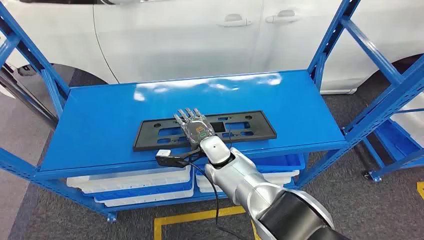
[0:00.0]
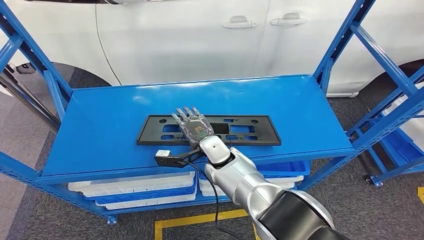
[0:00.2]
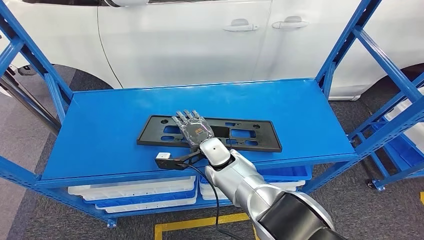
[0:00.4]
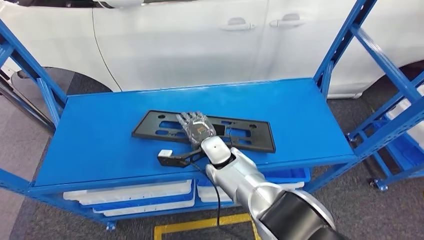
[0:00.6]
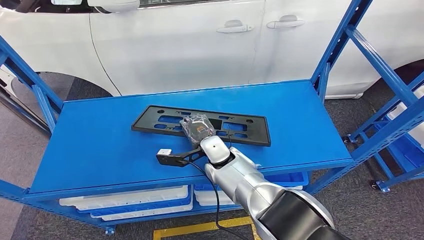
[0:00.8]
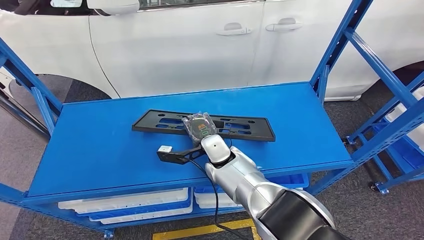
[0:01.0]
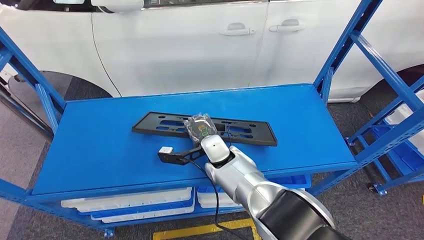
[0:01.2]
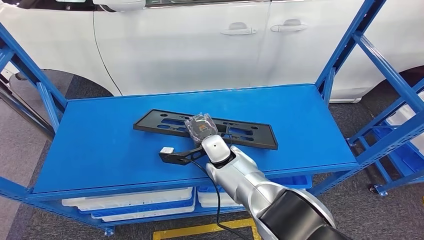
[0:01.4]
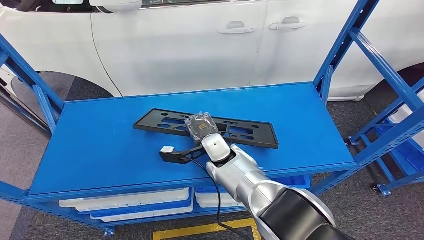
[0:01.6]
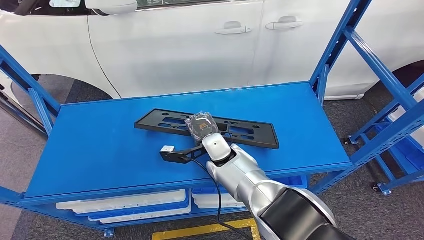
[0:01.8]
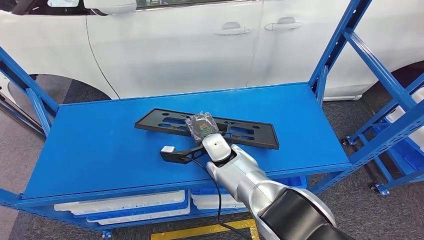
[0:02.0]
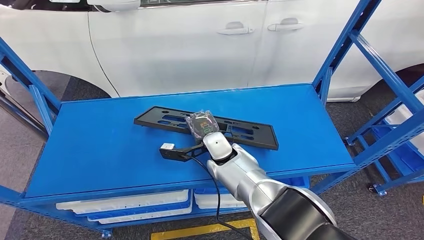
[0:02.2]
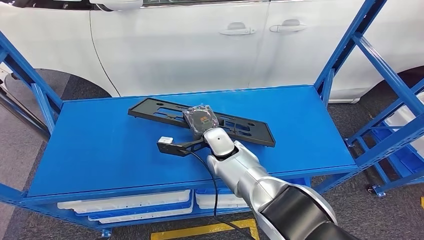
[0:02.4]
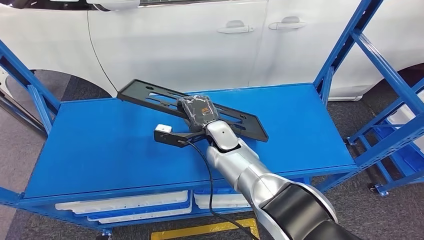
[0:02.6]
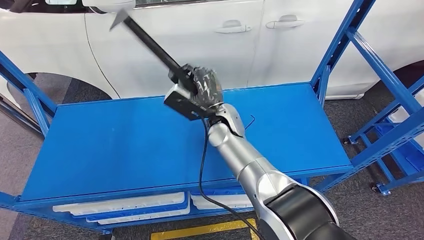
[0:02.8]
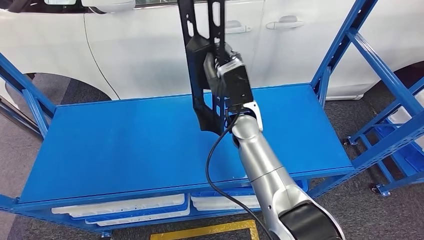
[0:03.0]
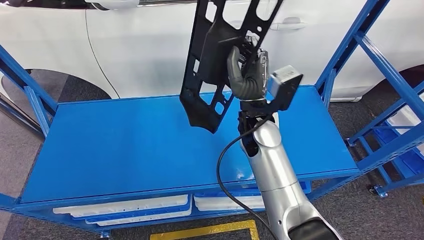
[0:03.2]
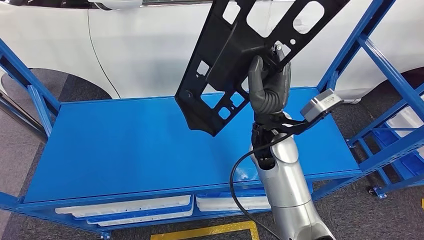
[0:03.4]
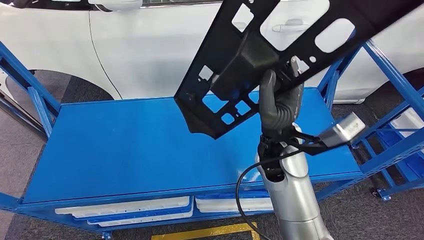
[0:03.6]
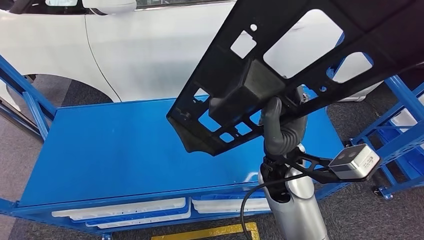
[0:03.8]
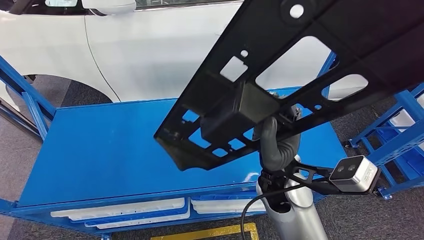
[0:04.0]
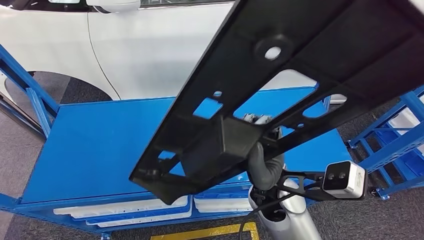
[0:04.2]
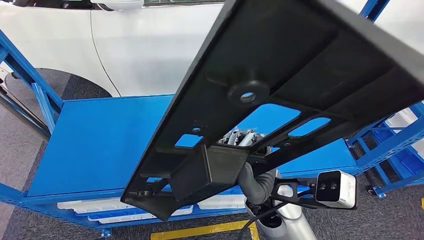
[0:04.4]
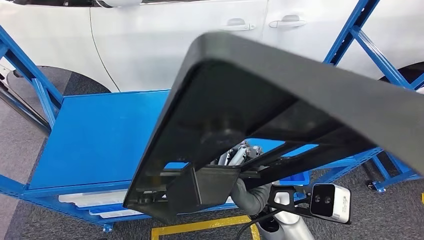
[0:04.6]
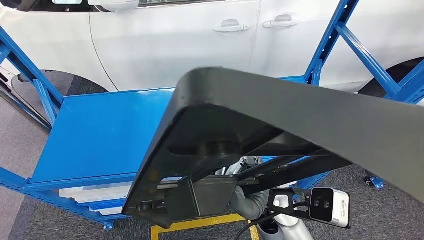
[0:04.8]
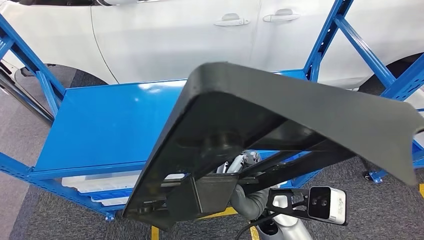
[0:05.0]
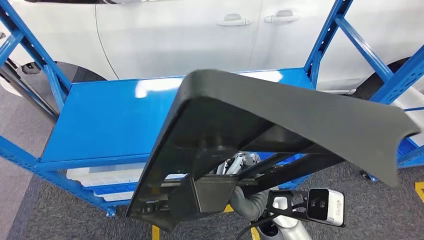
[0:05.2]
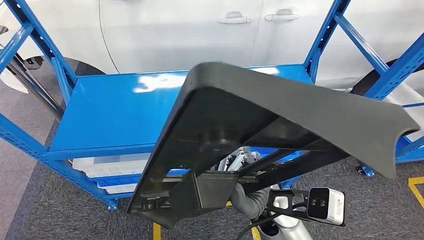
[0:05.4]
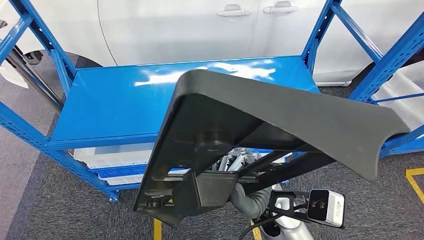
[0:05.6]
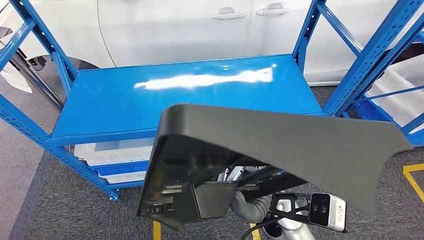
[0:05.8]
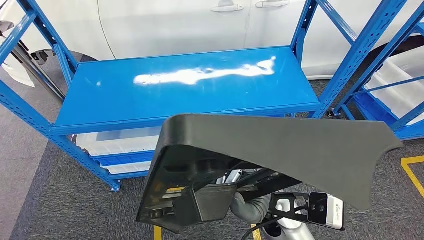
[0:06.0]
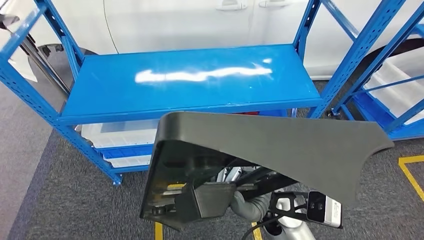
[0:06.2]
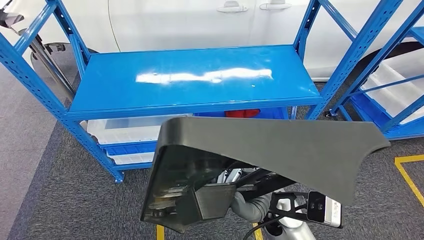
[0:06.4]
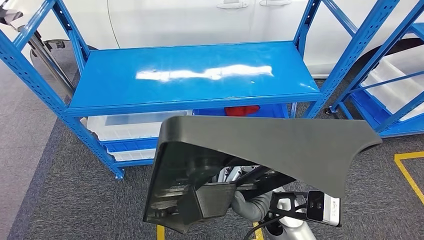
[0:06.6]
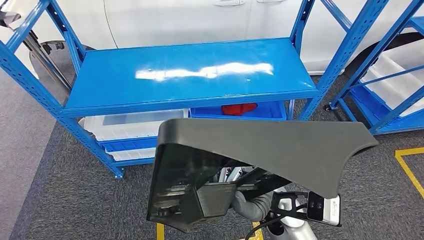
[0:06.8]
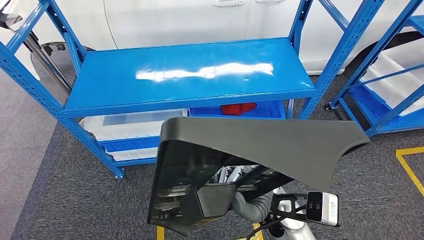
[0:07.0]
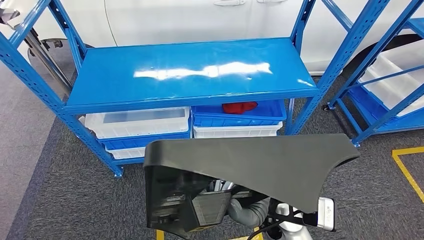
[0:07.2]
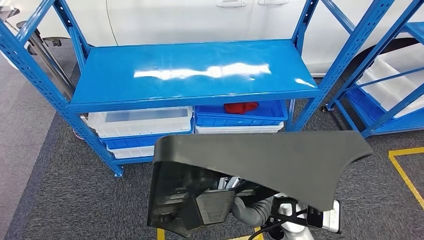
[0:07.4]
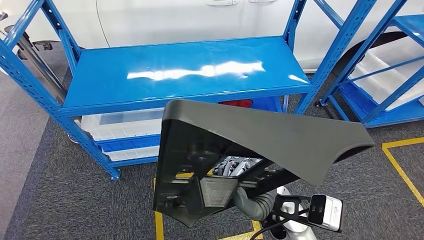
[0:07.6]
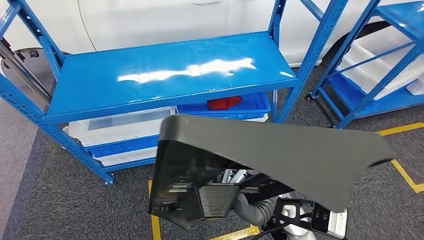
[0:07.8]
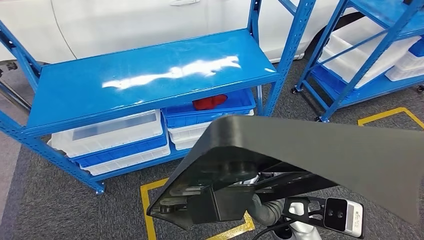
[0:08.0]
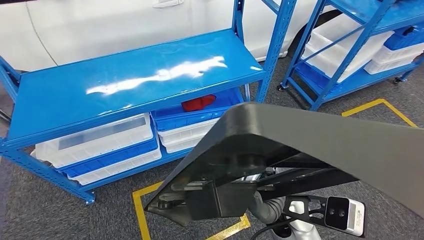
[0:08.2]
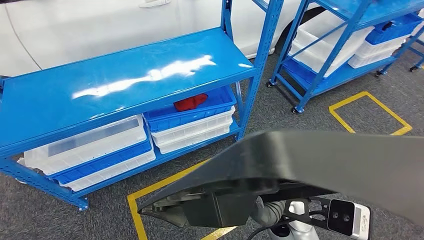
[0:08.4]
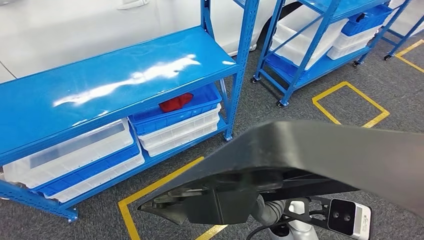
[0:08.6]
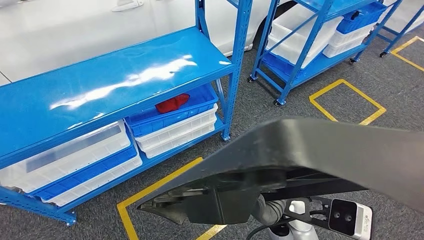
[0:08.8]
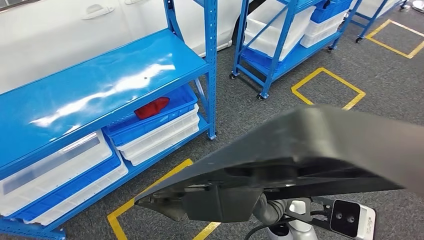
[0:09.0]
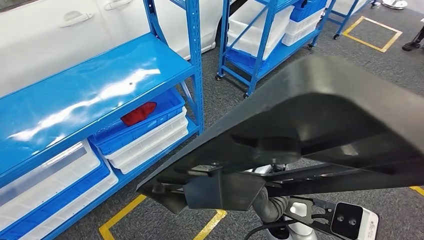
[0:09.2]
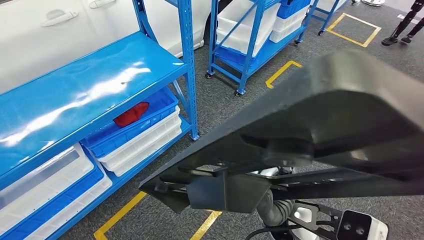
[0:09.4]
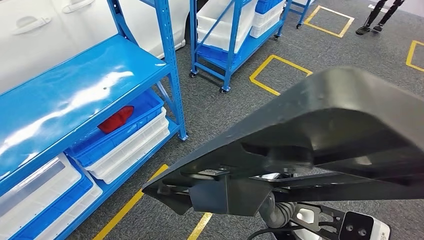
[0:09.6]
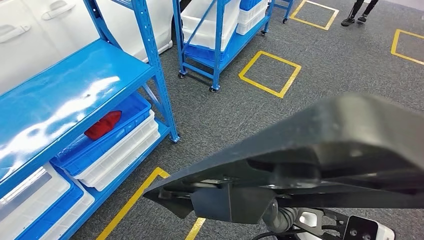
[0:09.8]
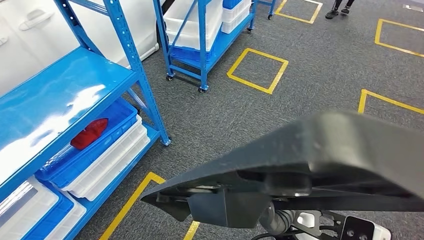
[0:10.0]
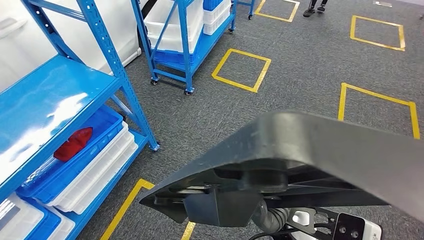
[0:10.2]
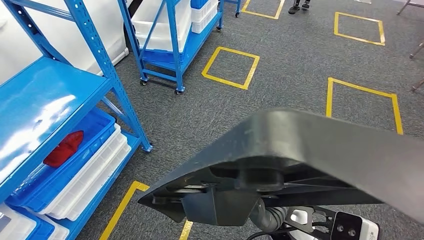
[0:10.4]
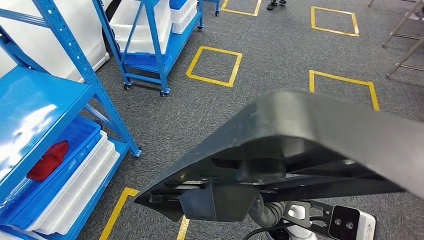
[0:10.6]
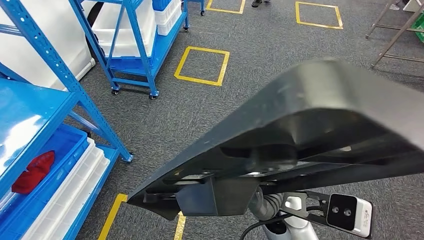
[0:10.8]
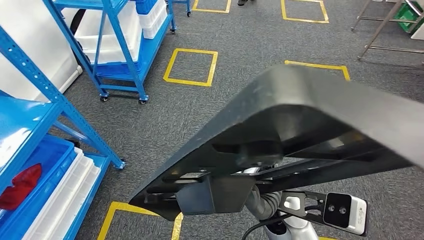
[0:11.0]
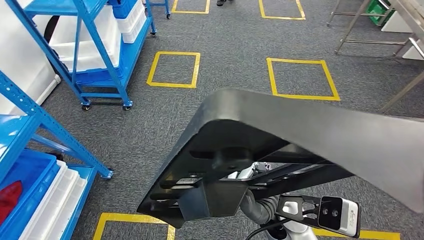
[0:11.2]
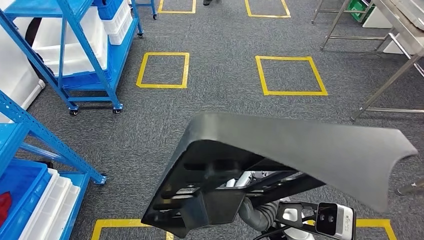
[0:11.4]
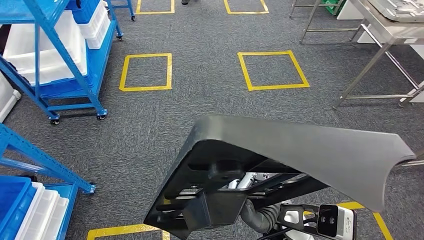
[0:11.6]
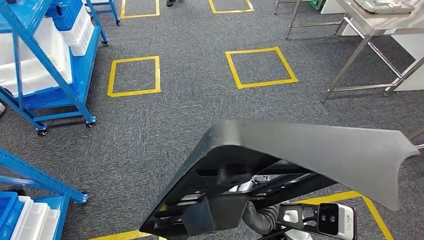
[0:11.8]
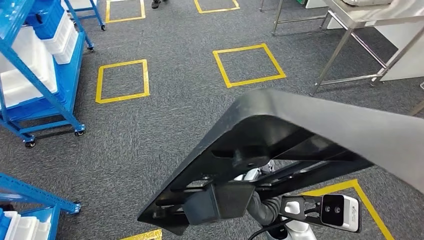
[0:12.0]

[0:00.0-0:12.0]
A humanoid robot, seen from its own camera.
Step, 0:00.0 to 0:03.8: Pick up the large material from the shelf.

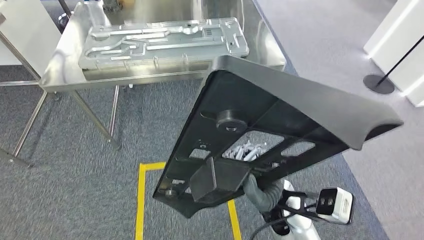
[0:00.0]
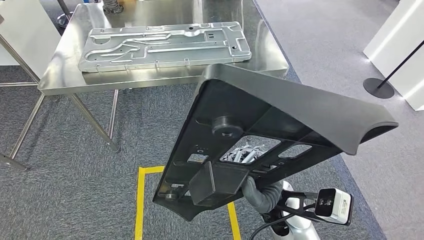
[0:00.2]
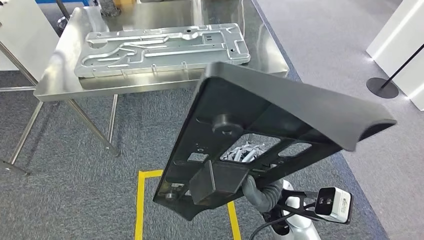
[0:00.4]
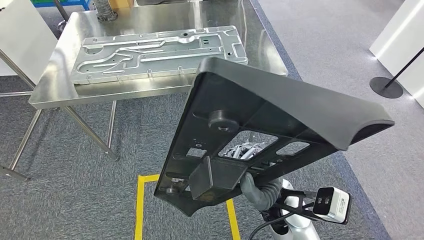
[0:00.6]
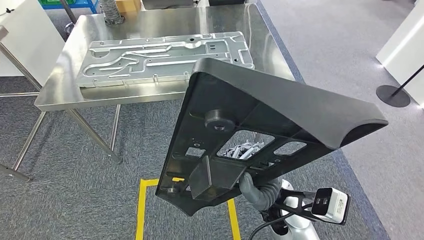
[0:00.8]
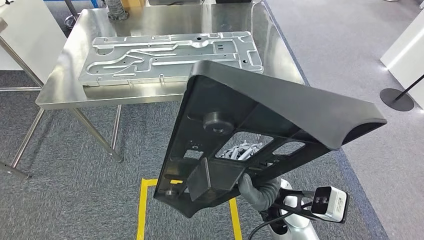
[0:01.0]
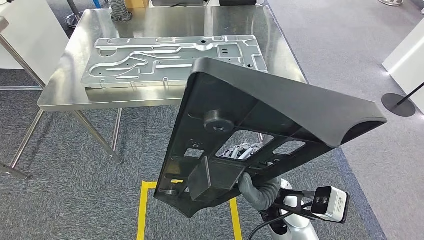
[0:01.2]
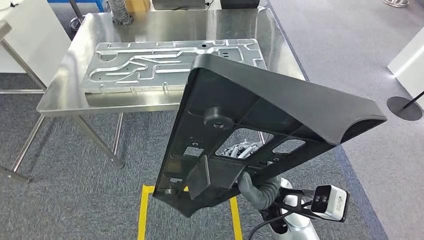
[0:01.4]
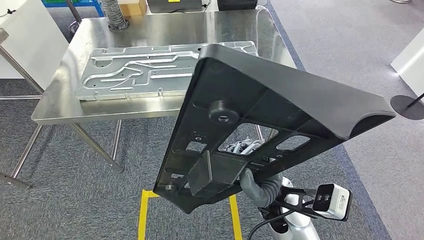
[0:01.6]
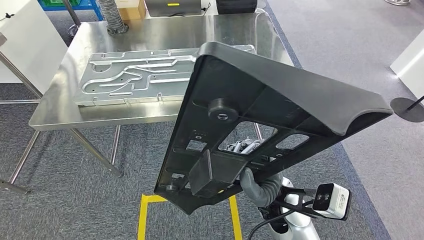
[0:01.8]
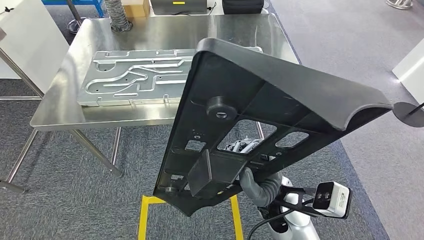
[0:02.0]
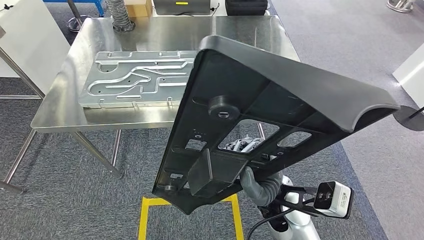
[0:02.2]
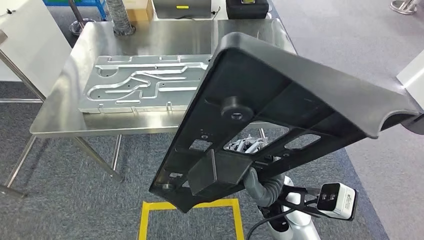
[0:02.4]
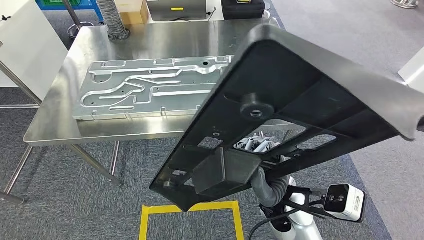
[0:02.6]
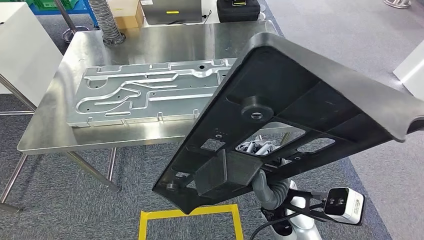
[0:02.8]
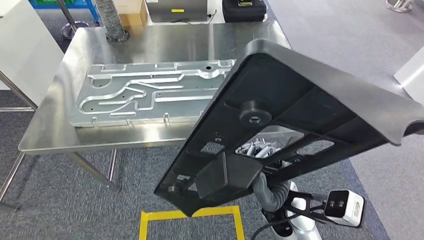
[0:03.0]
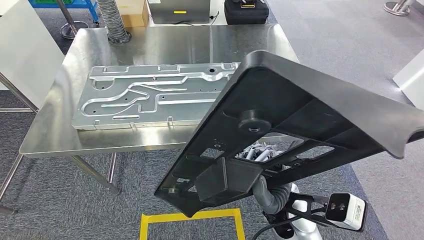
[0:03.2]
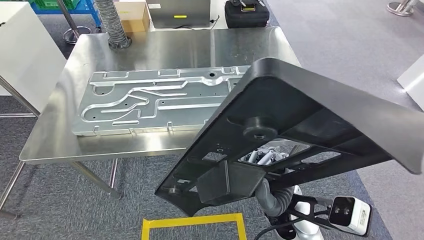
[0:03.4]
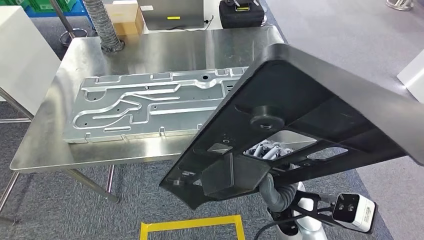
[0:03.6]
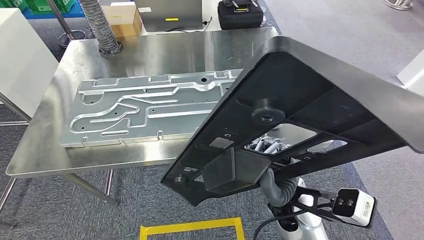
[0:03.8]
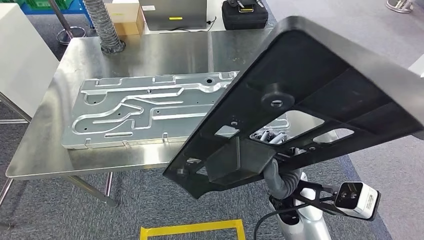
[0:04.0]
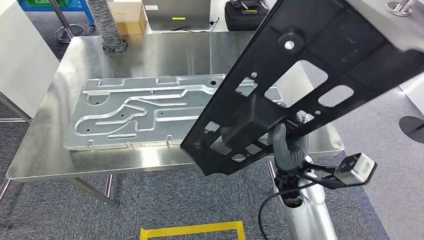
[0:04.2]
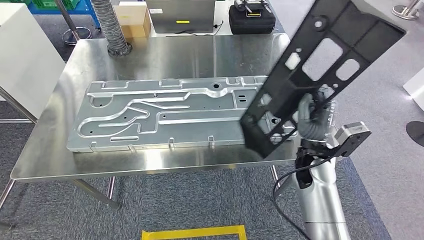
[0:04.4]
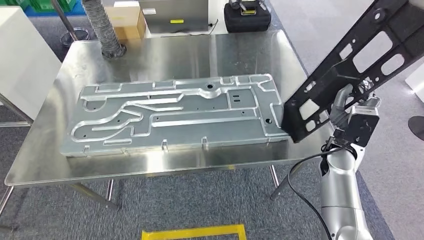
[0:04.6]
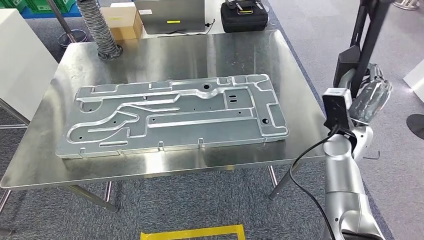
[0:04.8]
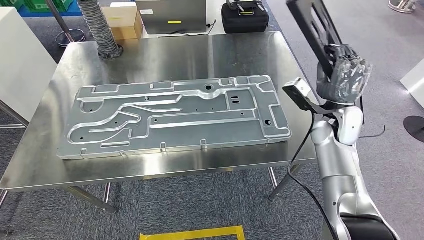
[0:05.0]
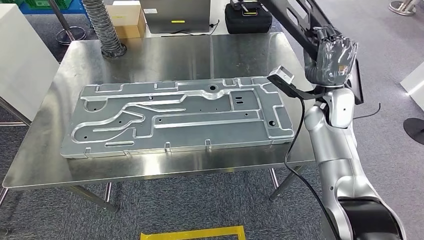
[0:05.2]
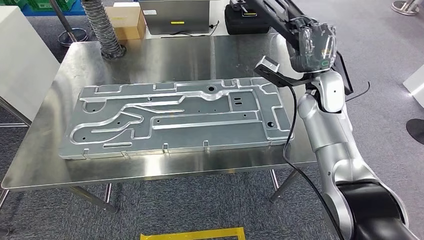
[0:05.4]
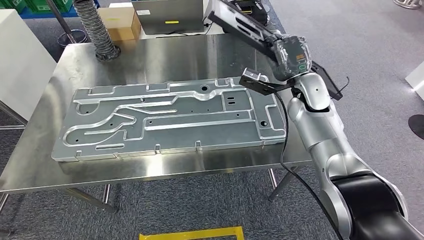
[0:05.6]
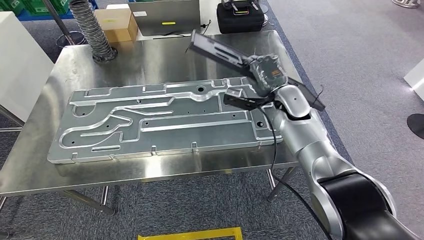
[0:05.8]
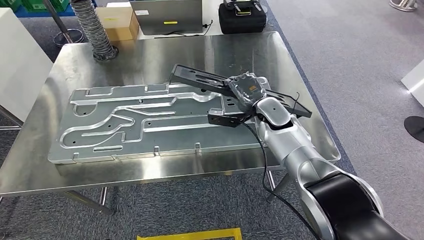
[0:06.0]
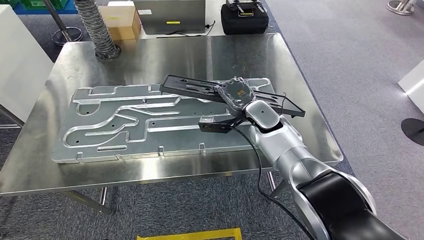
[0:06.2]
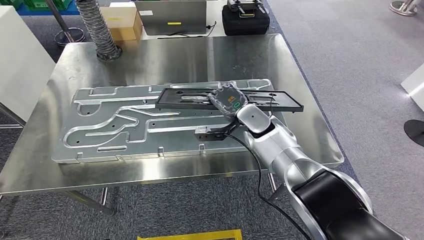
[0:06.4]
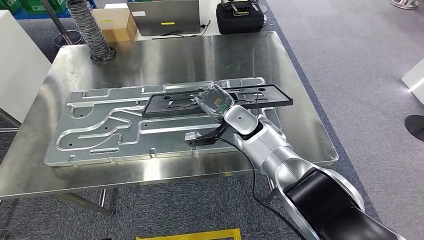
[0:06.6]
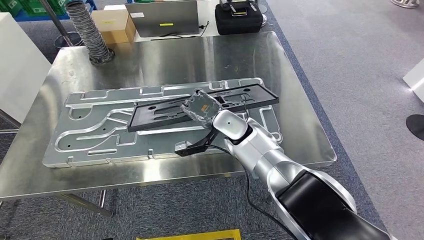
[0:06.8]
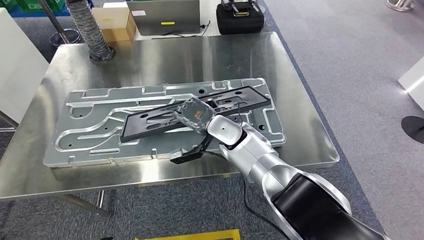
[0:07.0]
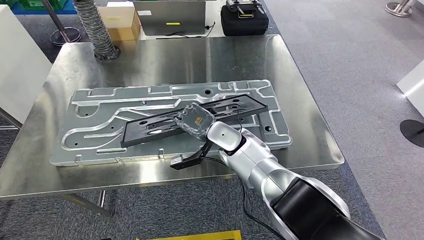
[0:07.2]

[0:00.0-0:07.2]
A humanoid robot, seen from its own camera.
Step, 0:00.0 to 0:03.0: Move the large material to the workbench.
